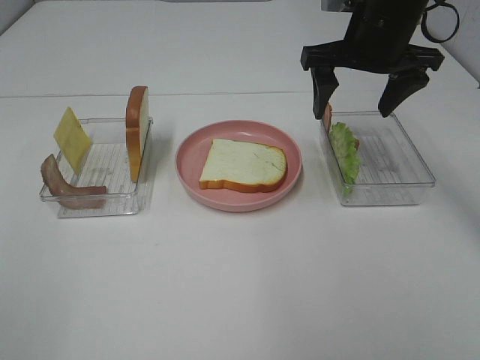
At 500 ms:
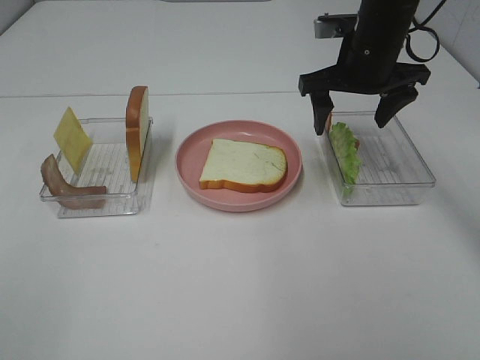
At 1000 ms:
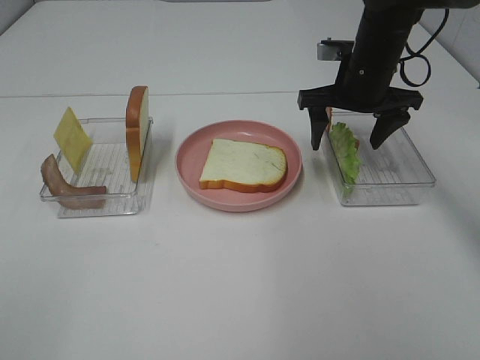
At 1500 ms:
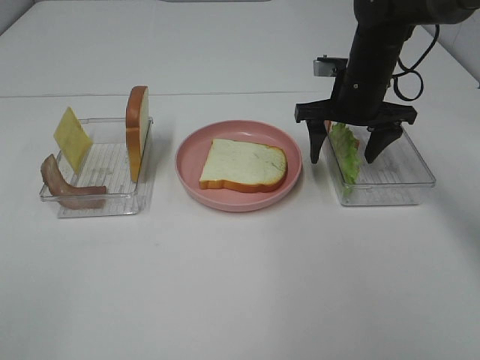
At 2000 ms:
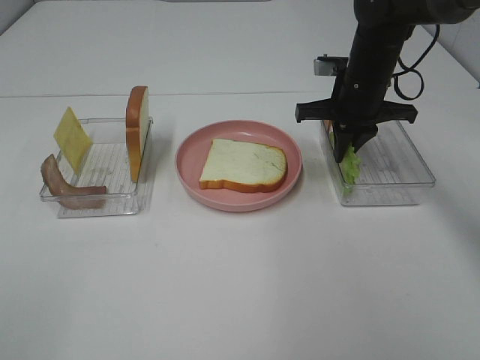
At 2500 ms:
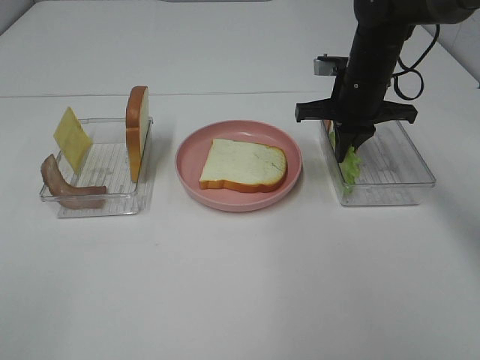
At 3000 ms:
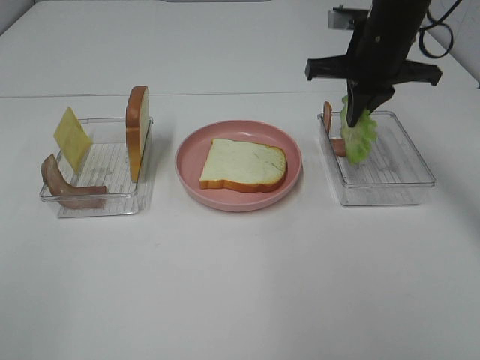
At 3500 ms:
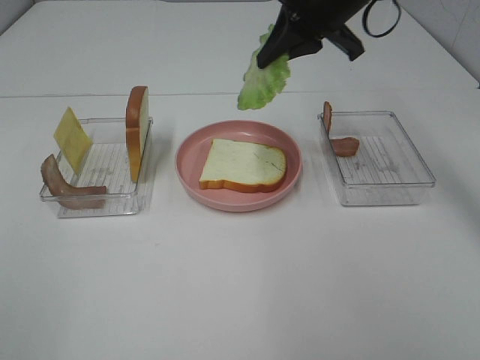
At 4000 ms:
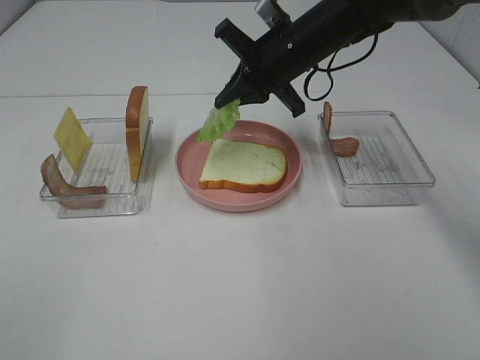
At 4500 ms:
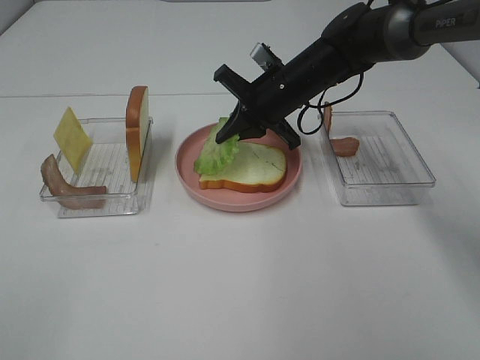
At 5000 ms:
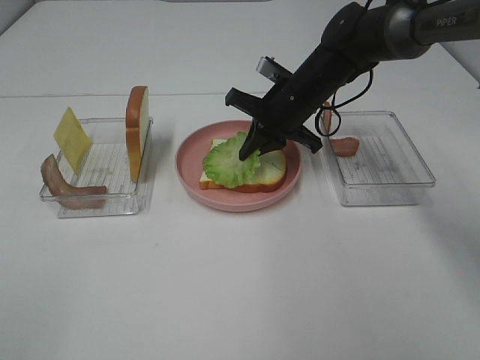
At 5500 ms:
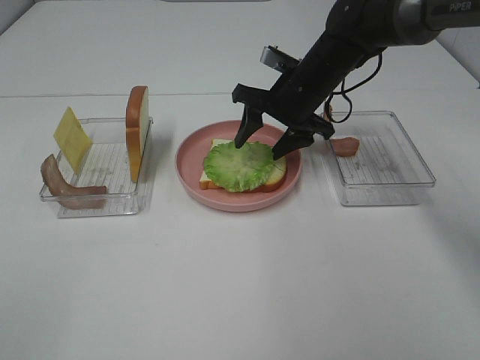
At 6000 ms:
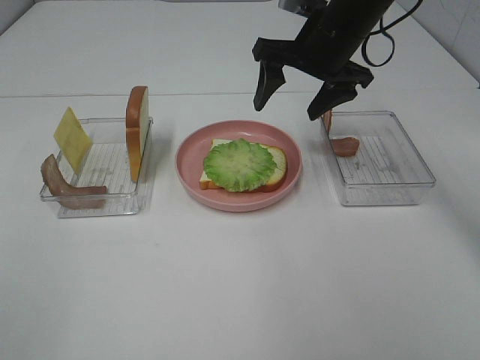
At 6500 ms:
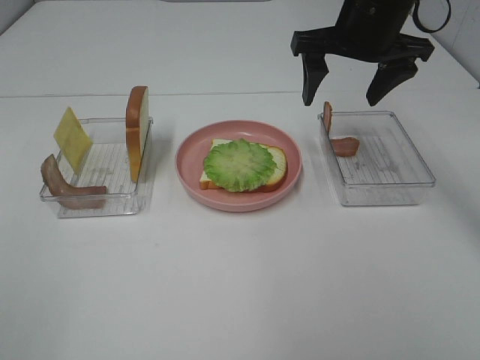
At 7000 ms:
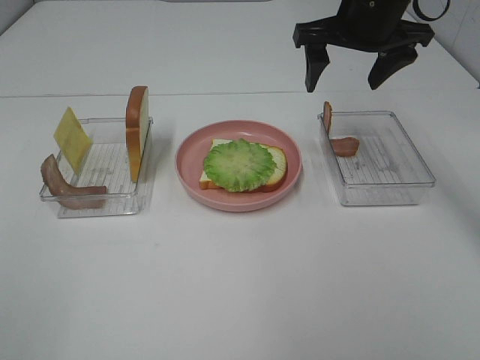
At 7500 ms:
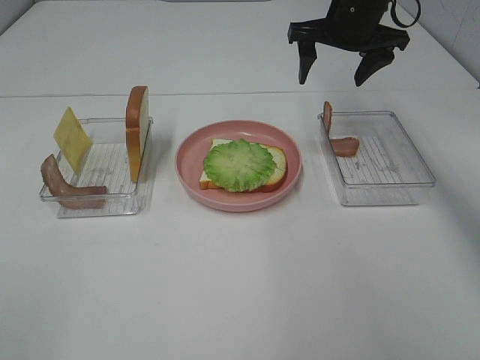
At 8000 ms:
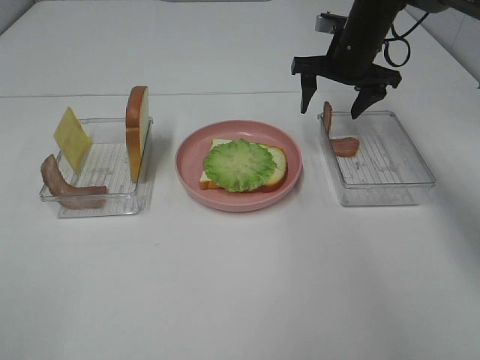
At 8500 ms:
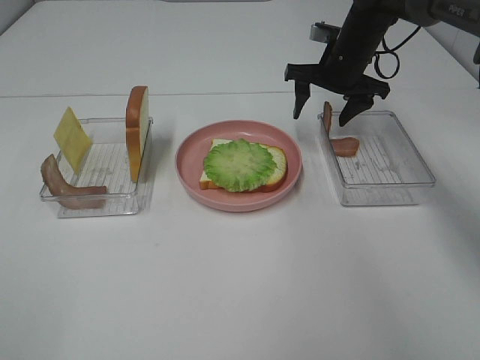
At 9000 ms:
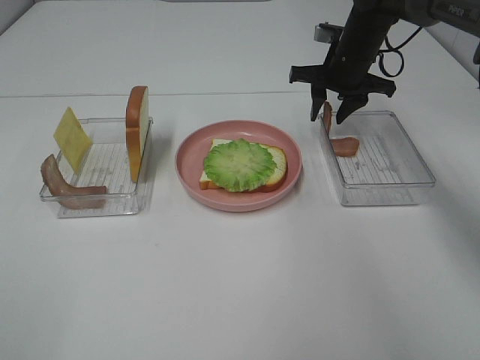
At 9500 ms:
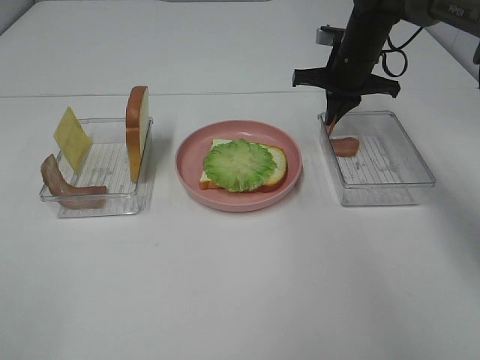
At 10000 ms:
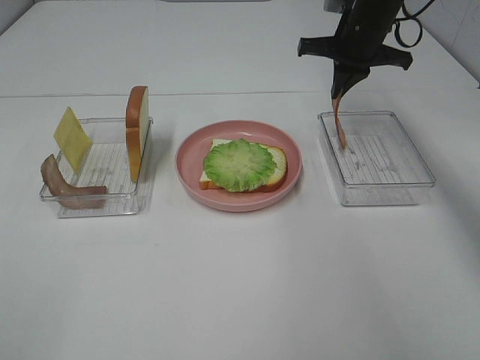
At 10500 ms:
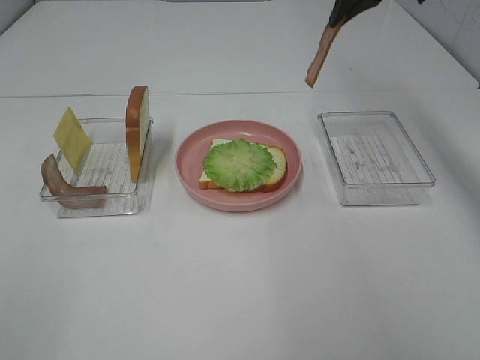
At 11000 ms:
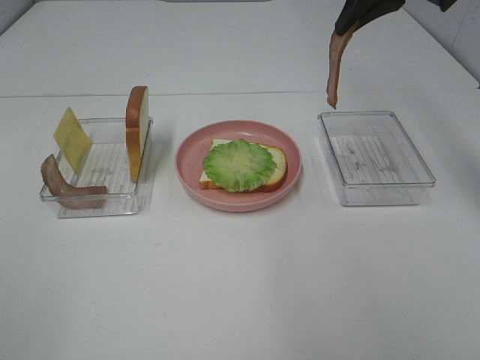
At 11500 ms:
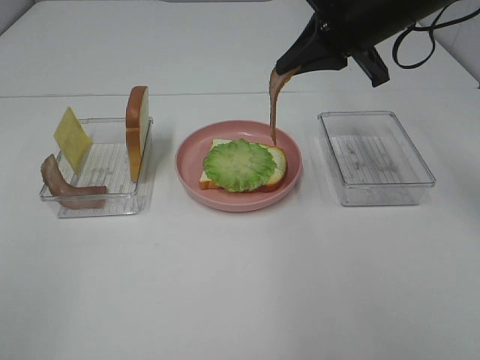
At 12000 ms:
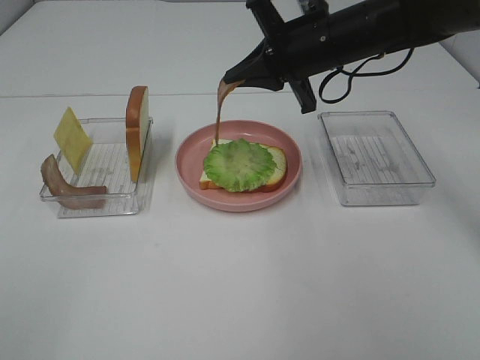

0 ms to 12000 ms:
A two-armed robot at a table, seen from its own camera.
Task of the whole recording: Make sandwiches.
Step, 0 ms to 2500 ms: Right hand:grab the lettuce slice.
Step, 3000 ms to 5500 ms: Right hand:place the lettuce slice on the bread slice.
Step, 6000 ms to 9500 ms: Right hand:grab the bacon.
0 ms to 2000 ms: The right gripper moves downward, some 10 cm, and closes up.
2000 ms to 4000 ms: The right gripper goes about 10 cm to the left, and travels upward and back again, some 10 cm each way.
4000 ms to 6000 ms: The right gripper shifts by approximately 5 cm, and opens up.
6000 ms to 8000 ms: The right gripper heads forward, downward and to the right, covering approximately 10 cm.
8000 ms to 10000 ms: The right gripper closes.
10000 ms to 12000 ms: The right gripper shifts about 10 cm backward and to the left.

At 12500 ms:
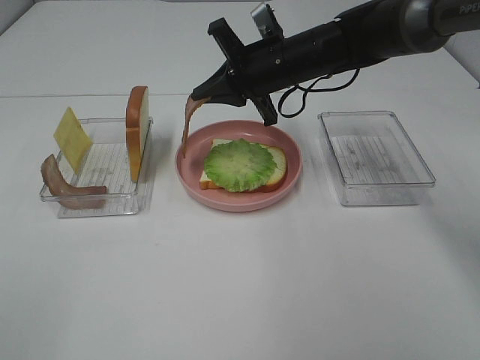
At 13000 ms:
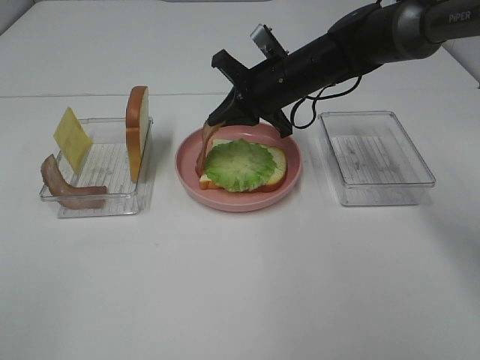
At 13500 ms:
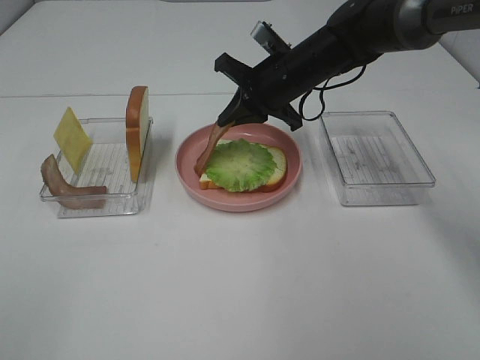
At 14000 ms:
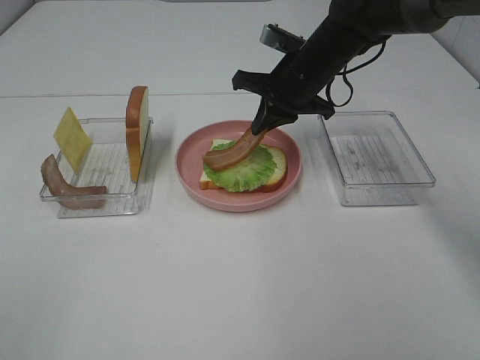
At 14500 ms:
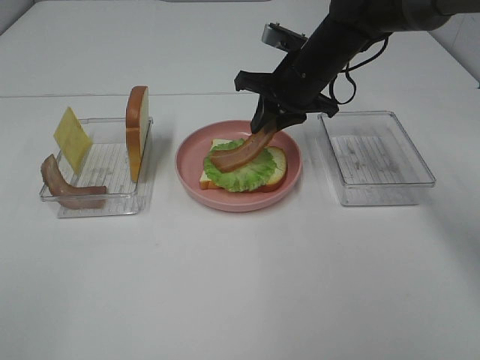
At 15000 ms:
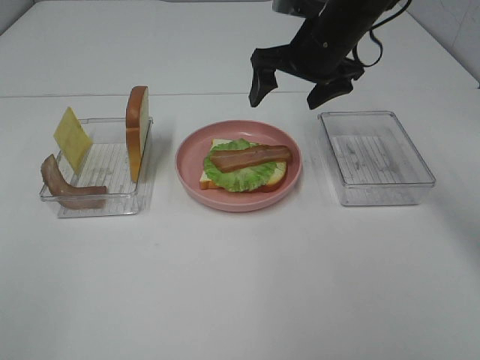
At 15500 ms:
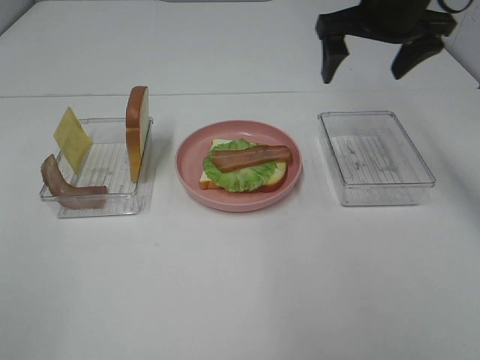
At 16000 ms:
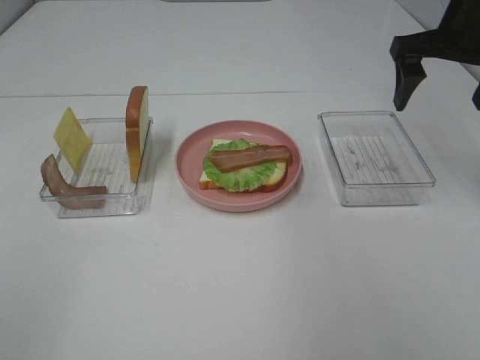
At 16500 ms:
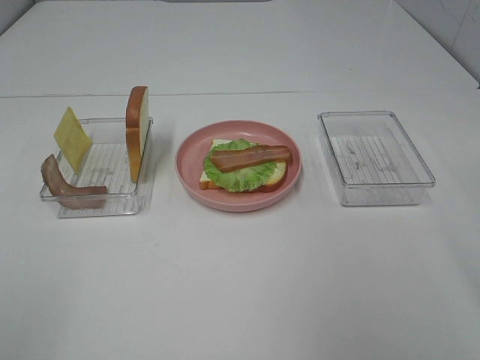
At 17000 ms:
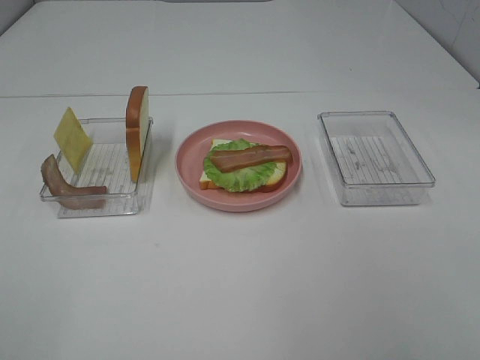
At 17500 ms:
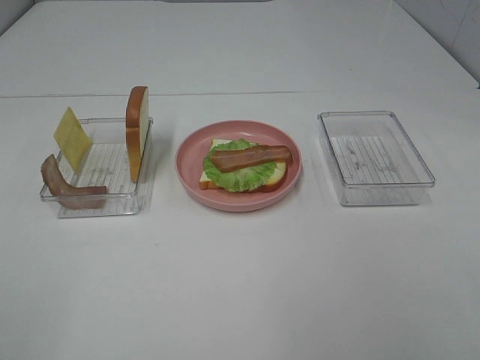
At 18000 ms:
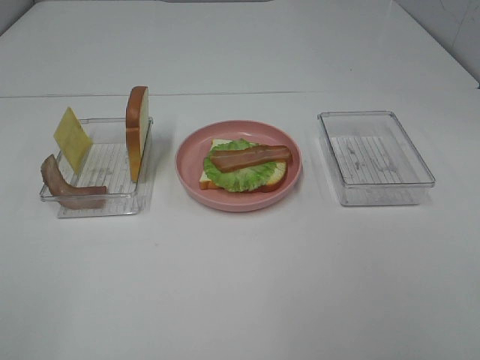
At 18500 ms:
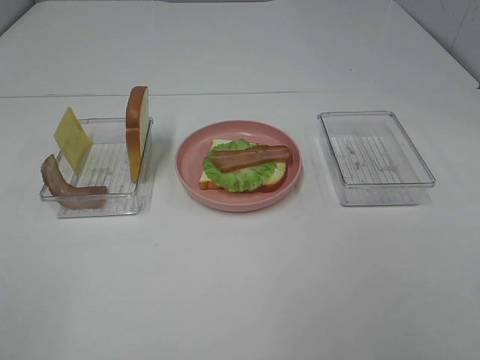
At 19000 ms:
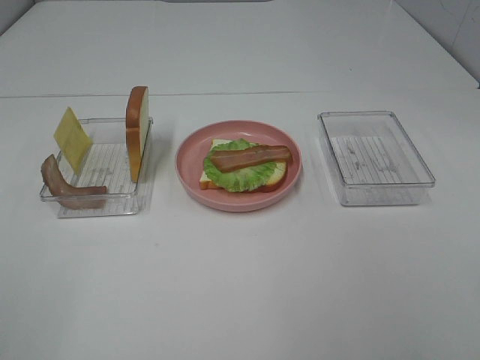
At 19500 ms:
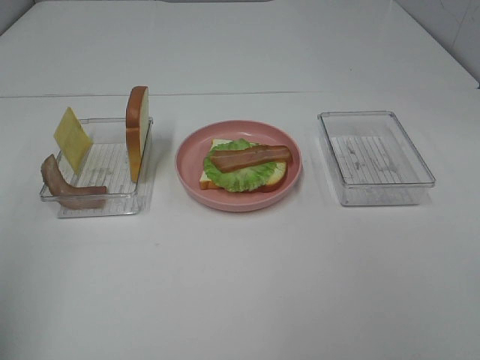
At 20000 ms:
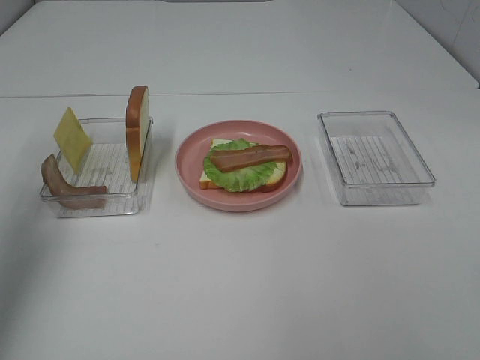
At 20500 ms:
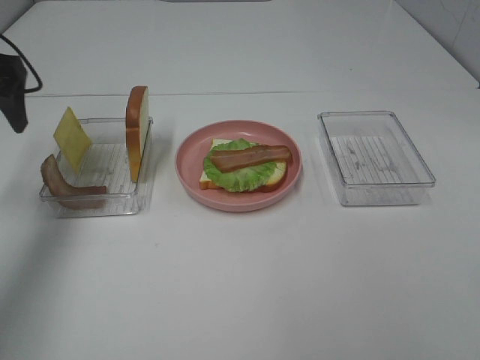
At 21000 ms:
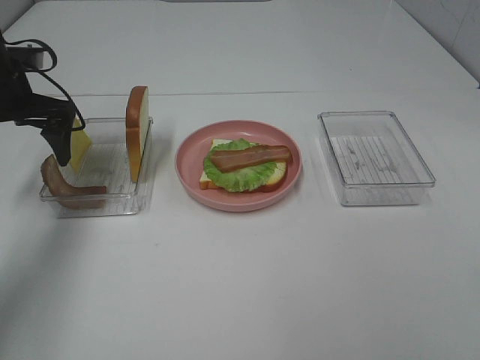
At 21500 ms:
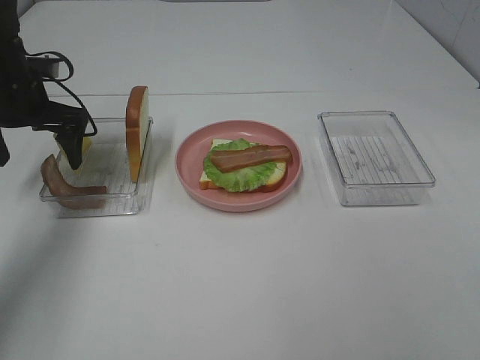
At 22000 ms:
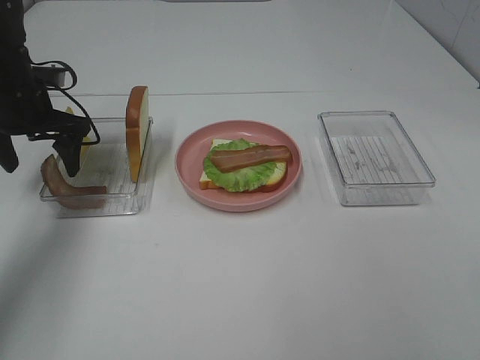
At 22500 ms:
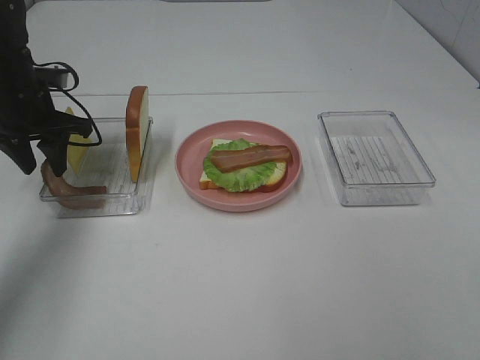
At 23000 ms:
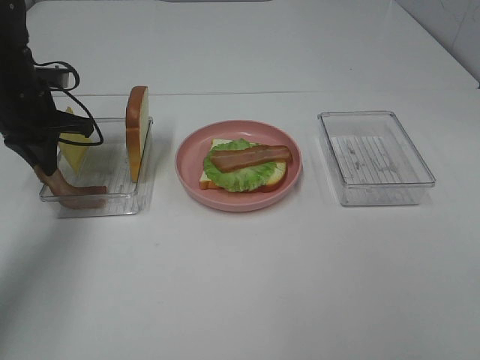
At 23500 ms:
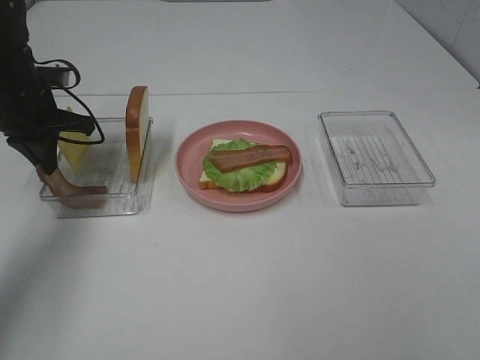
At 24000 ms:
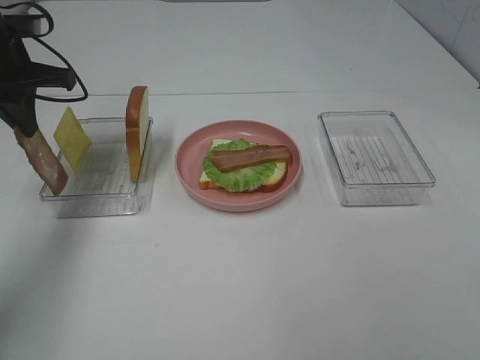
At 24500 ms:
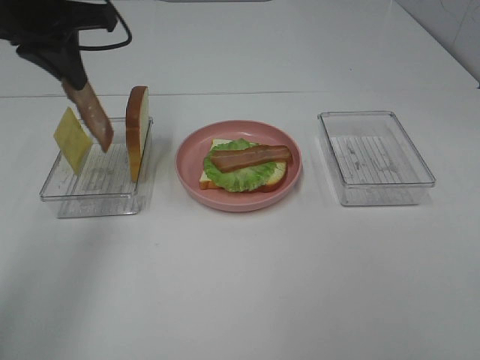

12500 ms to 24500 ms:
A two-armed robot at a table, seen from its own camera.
Task of the whole recording: Make sandwiches.
Step, 12500 ms to 15000 ms: Right hand:place bacon on lettuce slice.
Step, 15500 ms to 23000 ms: Left hand:grab the bacon.
12500 ms to 14500 ms: The right gripper opens.
14500 ms to 16500 ms: The right gripper travels backward, to the right and upward by about 35 cm, and opens.
18500 ms to 20500 ms: The left gripper is displaced forward by about 40 cm.
20500 ms to 22500 ms: The left gripper goes approximately 10 cm downward and forward, and closes up.
22500 ms to 24500 ms: The left gripper is displaced upward and to the right by about 15 cm, and closes up.

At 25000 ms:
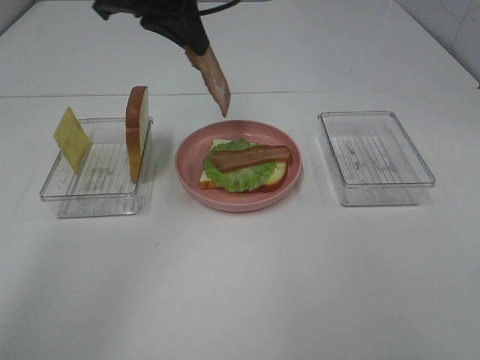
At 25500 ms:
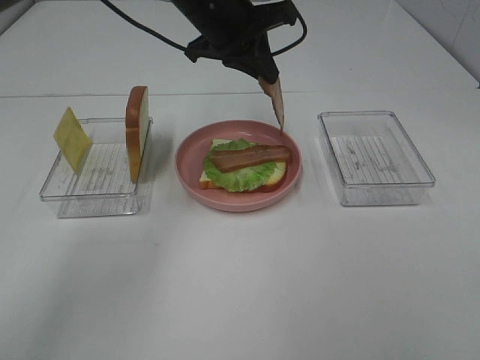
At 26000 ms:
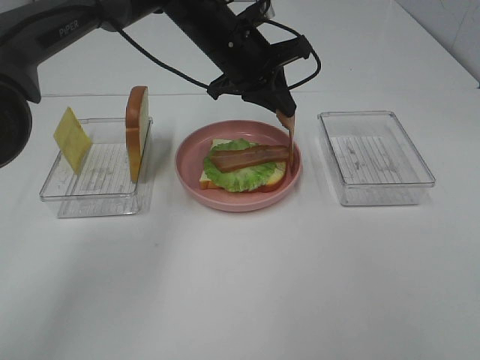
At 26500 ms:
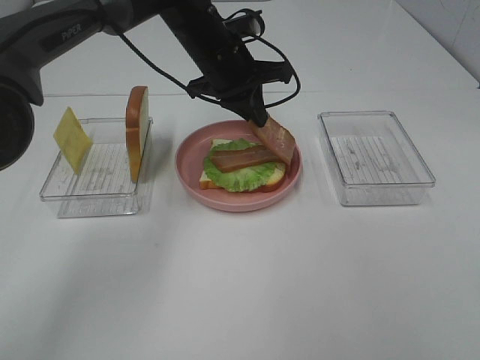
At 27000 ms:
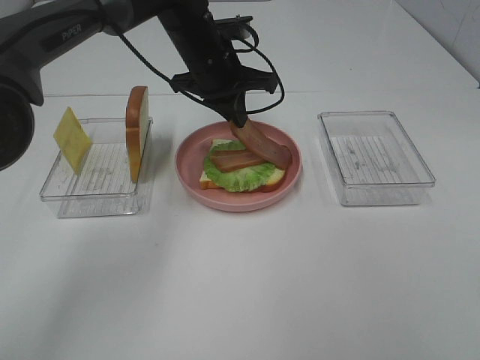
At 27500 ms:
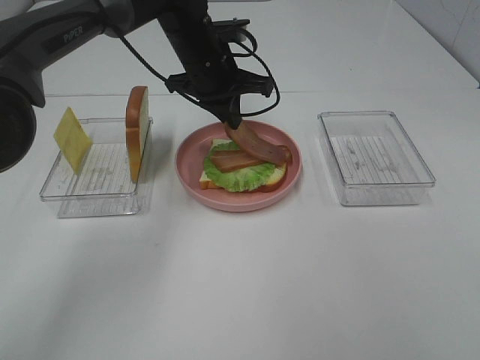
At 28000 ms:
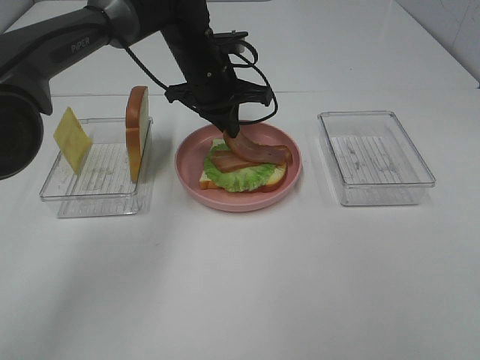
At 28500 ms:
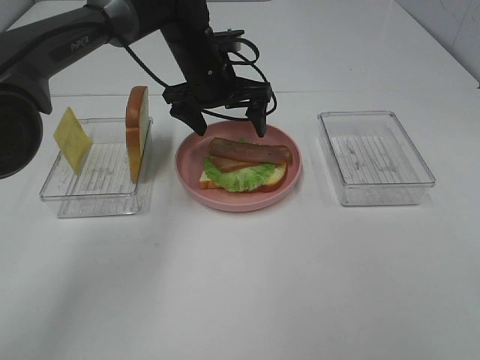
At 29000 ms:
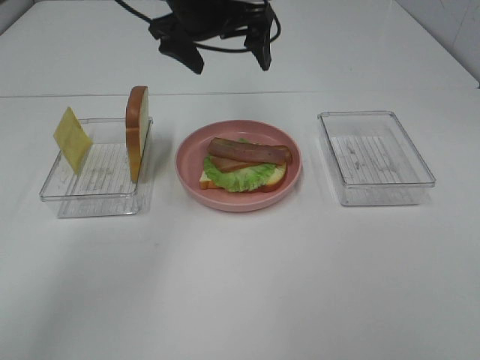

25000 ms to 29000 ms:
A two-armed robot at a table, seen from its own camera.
Task of the whole recording: Make sandwiches.
Step, 25000 ms to 28500 ms: Left hand:place bacon on bacon.
25000 ms to 27000 ms: The left gripper travels downward, forward and to the right by about 15 cm.
27000 ms to 29000 ms: The left gripper is displaced upward by roughly 10 cm, and opens.
